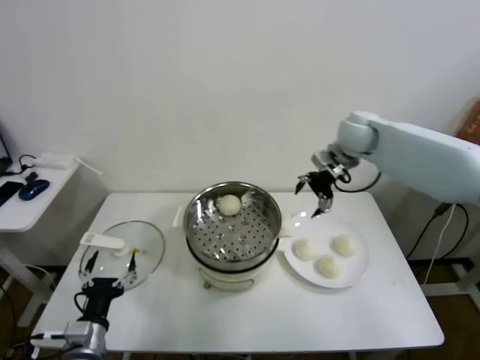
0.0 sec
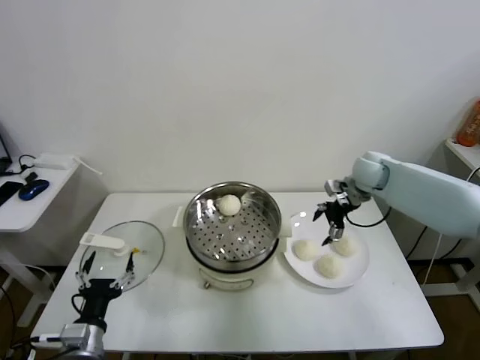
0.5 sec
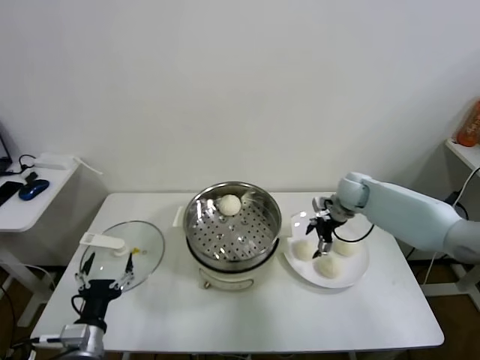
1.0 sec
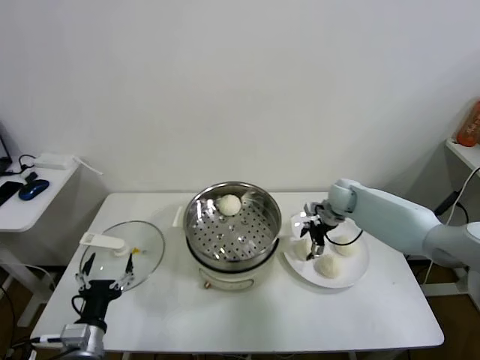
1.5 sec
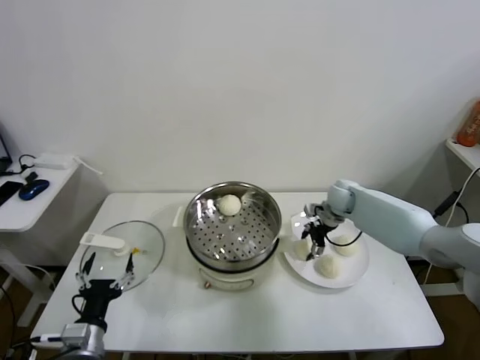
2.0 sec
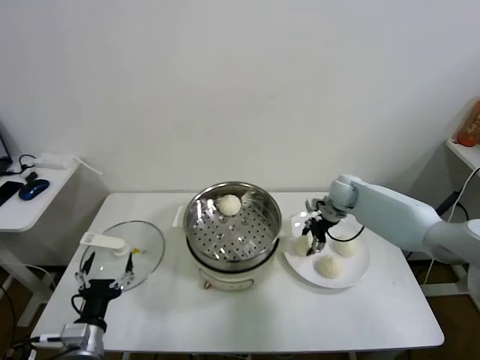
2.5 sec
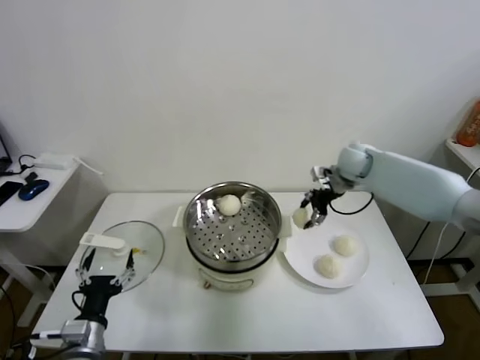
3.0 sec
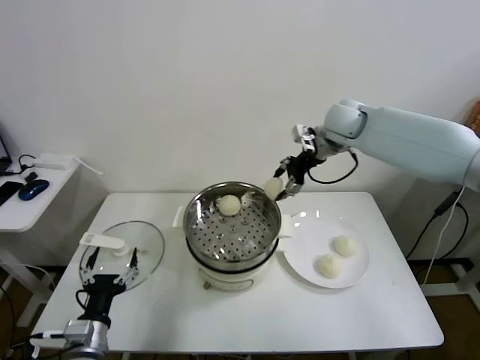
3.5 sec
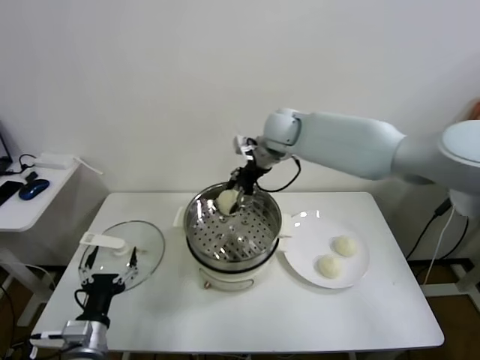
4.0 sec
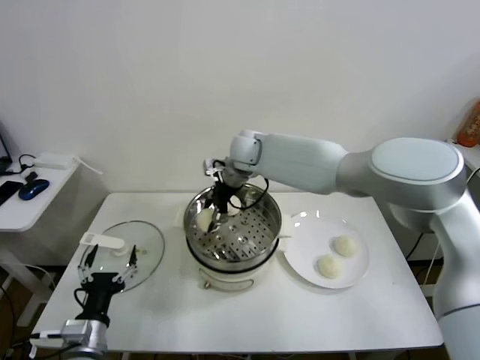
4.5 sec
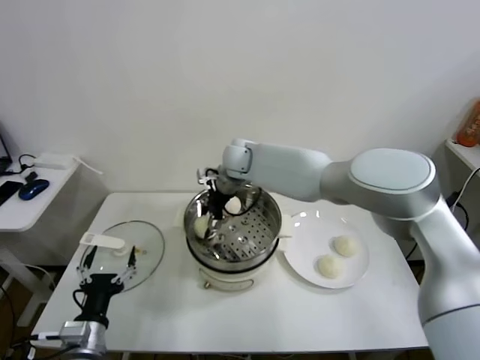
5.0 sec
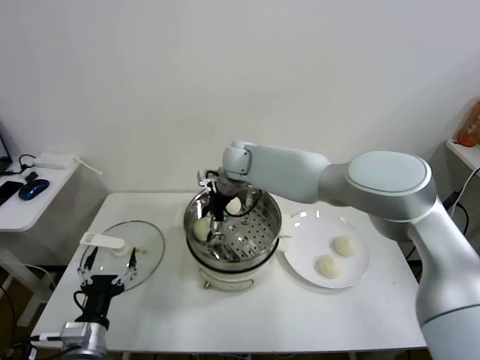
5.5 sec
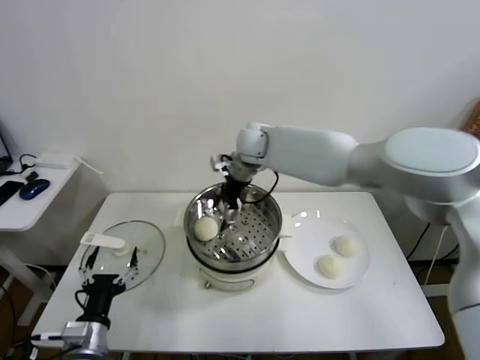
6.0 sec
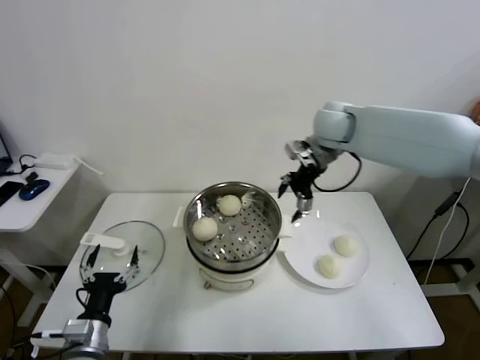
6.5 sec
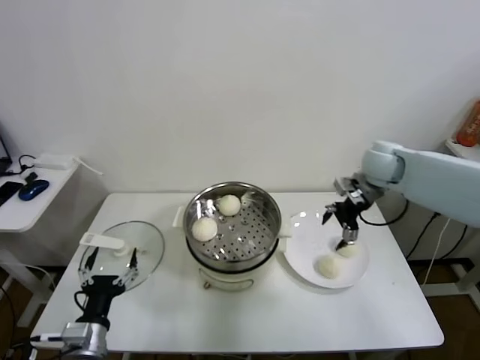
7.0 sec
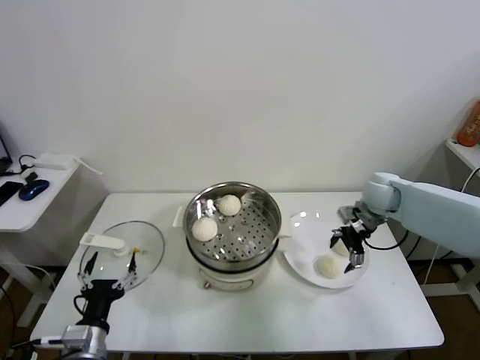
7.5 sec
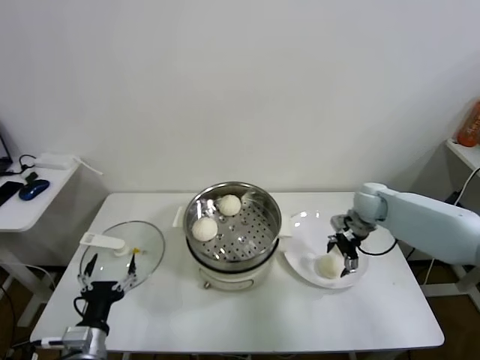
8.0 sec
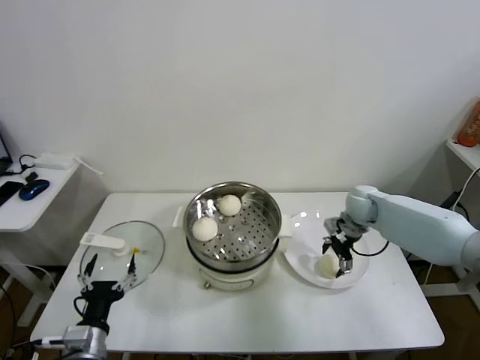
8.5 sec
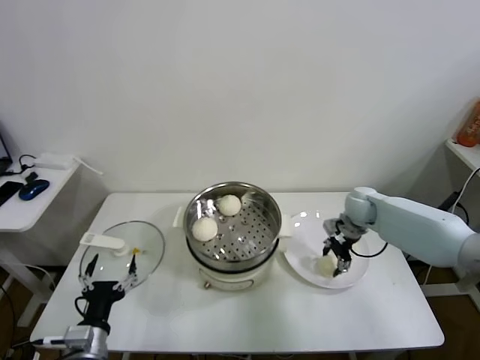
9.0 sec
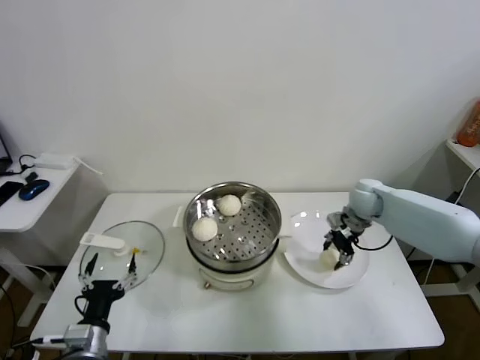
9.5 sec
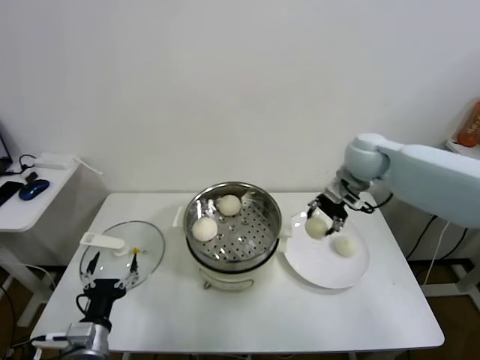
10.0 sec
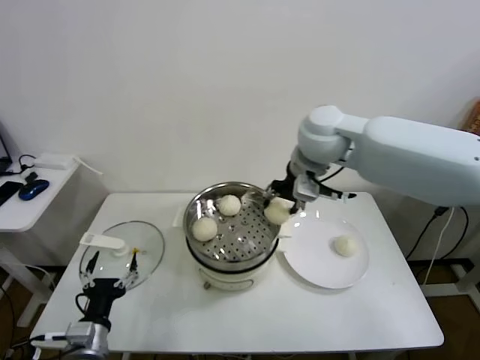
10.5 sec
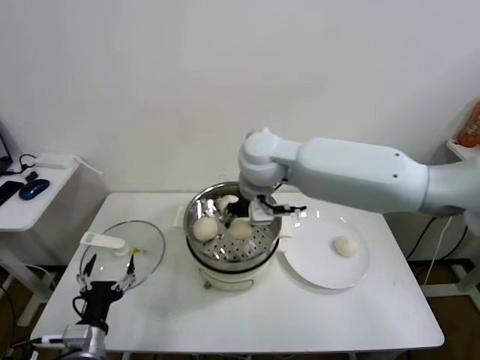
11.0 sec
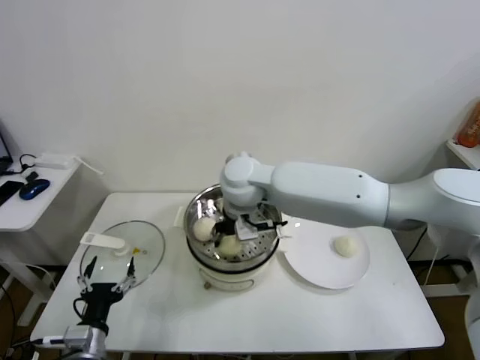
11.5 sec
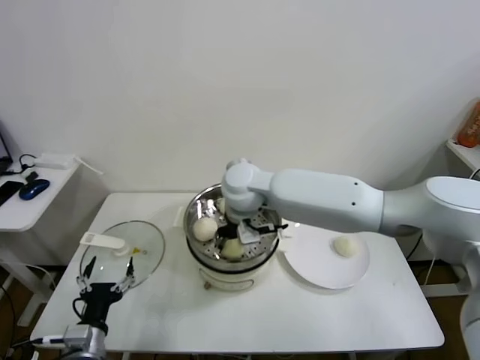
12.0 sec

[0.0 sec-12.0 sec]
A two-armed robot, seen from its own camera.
Task of the whole recording: take steamed baozi put them in steamer.
Step, 0.0 sec to 2.0 sec: Grasp the baozi in the plate with right gripper.
Step, 2.5 sec to 5.5 sec: Place the baozi on the steamer with right gripper.
Step, 6.0 sec to 9.0 sec: Grasp the baozi in the plate with right gripper.
0.0 sec to 2.0 sec: The right gripper shifts roughly 20 cm downward, and closes.
2.0 sec to 4.0 sec: The right gripper travels upward and to the left by approximately 30 cm.
4.0 sec to 6.0 sec: The right gripper opens up.
6.0 sec to 8.0 sec: The right gripper shifts approximately 35 cm to the right and downward.
8.0 sec to 10.0 sec: The right gripper moves upward and to the left, about 15 cm, and closes its fingers.
10.0 sec to 12.0 sec: The right gripper moves to the left, roughly 25 cm.

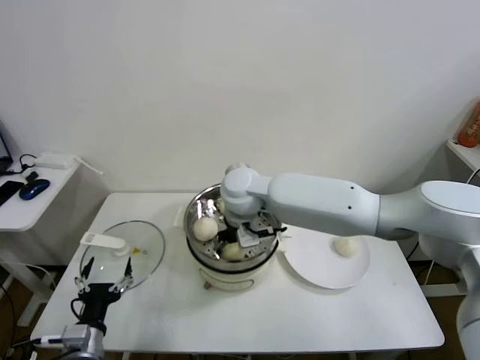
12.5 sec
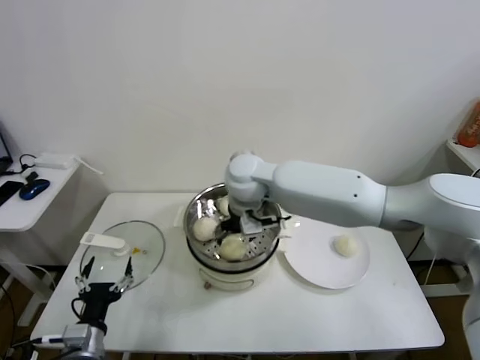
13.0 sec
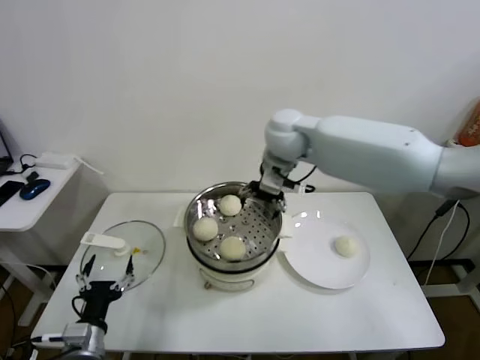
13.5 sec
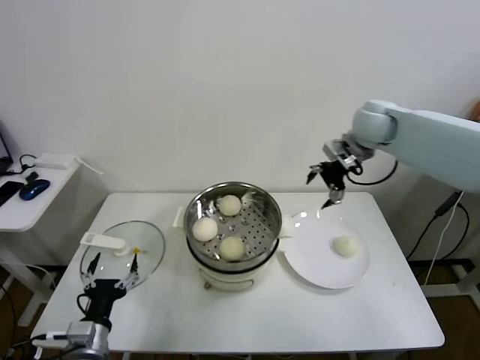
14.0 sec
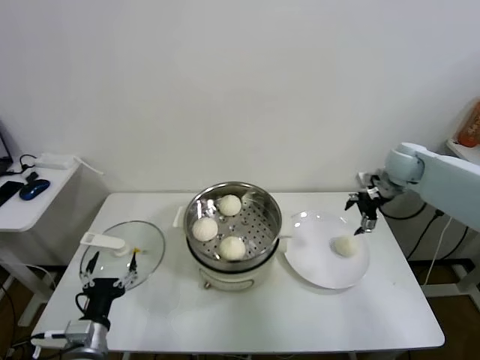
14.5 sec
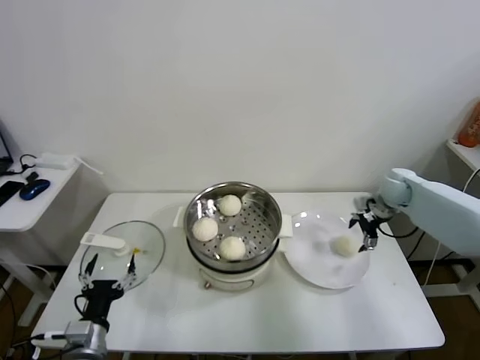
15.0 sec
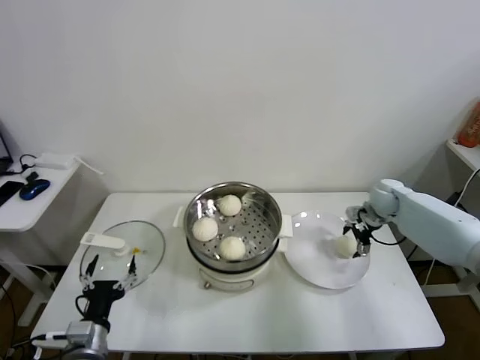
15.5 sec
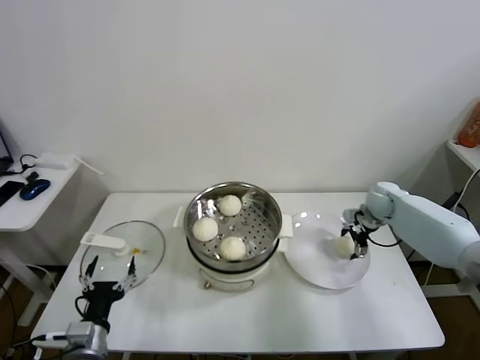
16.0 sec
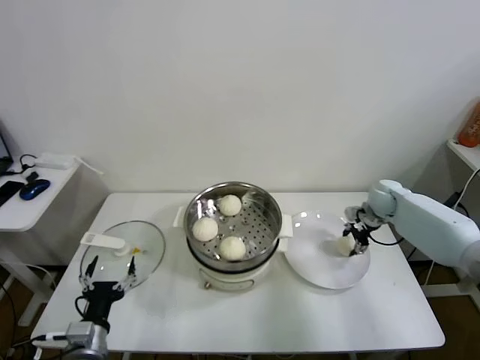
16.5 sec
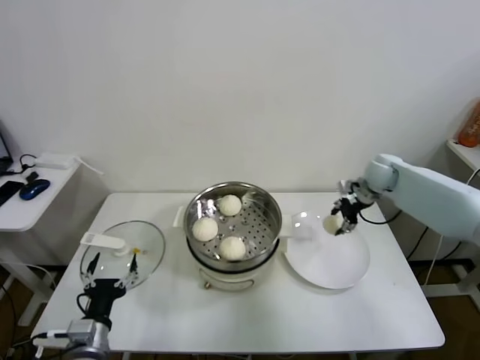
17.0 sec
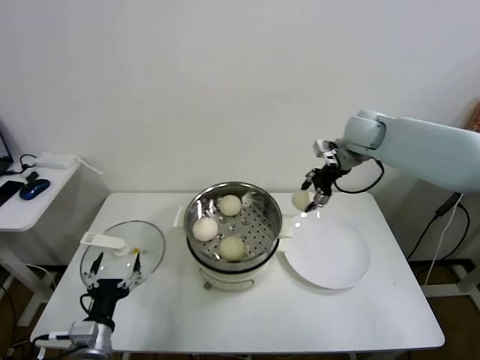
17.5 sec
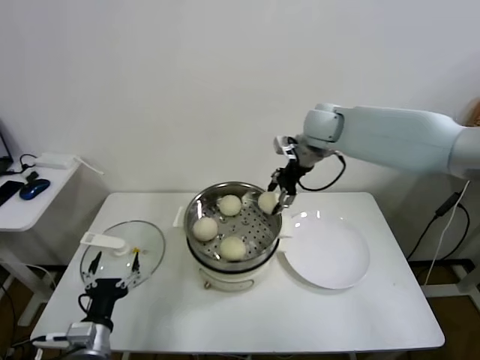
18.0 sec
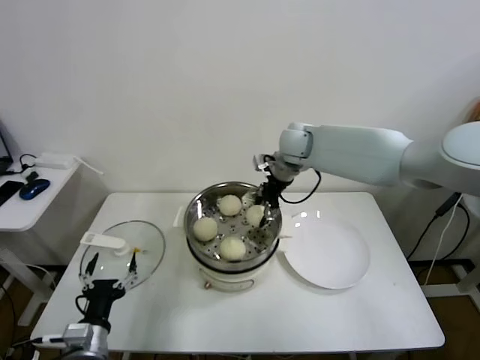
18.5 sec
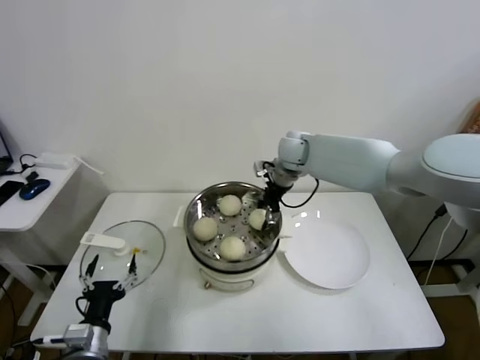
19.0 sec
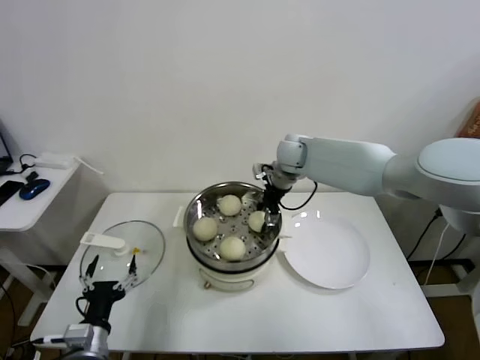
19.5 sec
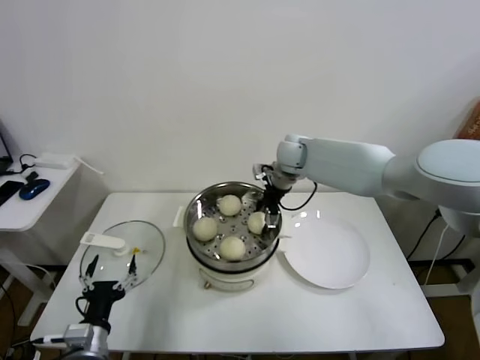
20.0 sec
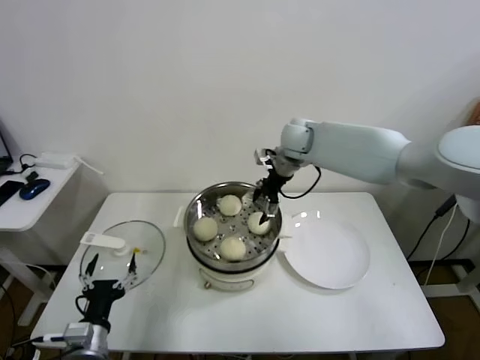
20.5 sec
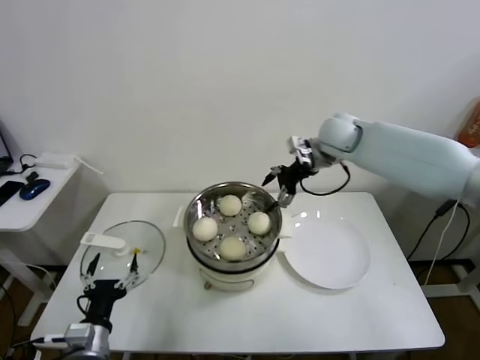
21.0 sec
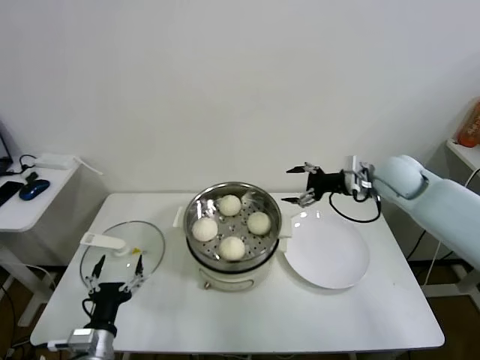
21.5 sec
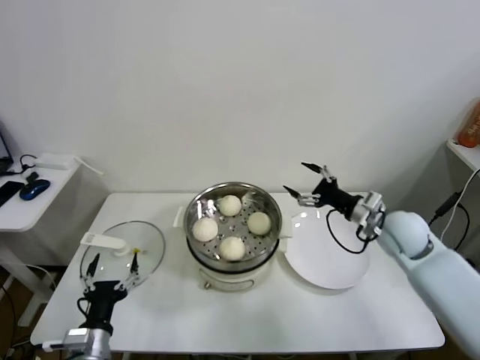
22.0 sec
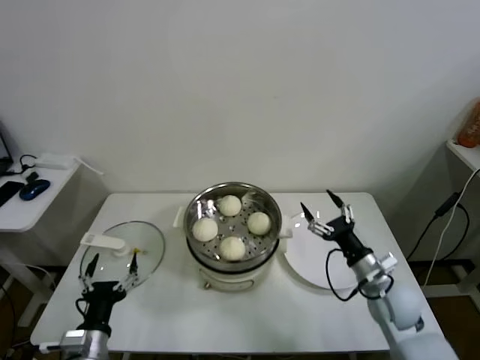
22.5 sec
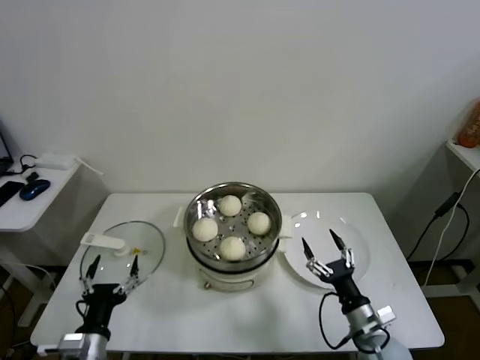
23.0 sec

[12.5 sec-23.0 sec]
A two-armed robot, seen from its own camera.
Task of the whole recording: take steamed baozi put them in steamer.
Step, 13.0 sec to 16.0 sec: Grasp the baozi in the plate with right gripper.
Step, 16.5 sec to 20.0 sec: Place the baozi on the steamer with right gripper.
12.5 sec to 14.5 sec: The right gripper heads to the right, covering some 40 cm, and opens its fingers.
14.5 sec to 16.5 sec: The right gripper shifts roughly 15 cm downward, and closes its fingers.
16.5 sec to 19.0 sec: The right gripper shifts about 30 cm to the left and upward.
19.0 sec to 21.0 sec: The right gripper heads to the right and upward, covering approximately 10 cm, and opens up.
21.0 sec to 23.0 sec: The right gripper moves backward and downward, approximately 50 cm.
